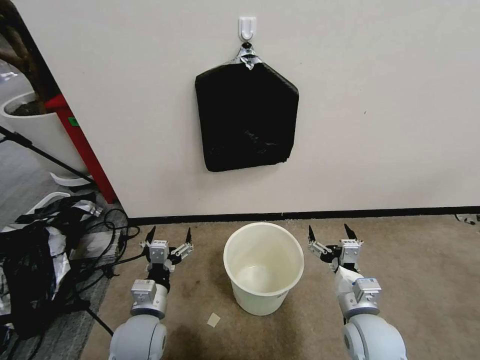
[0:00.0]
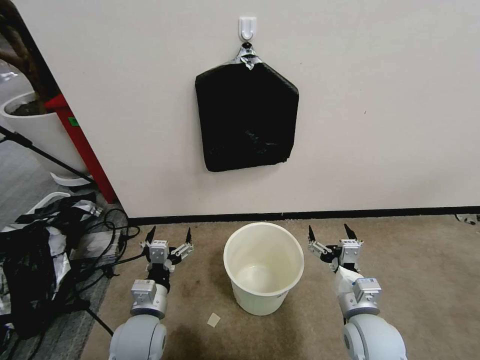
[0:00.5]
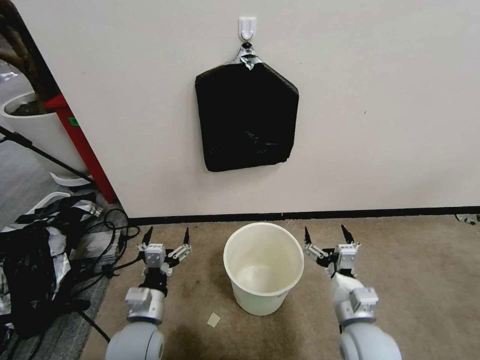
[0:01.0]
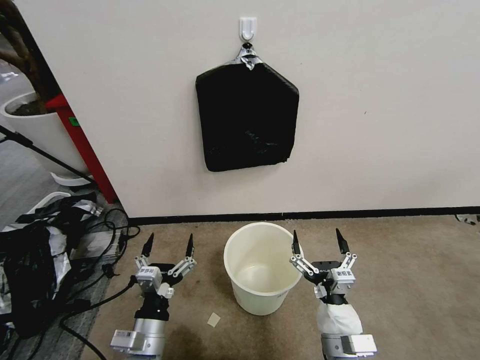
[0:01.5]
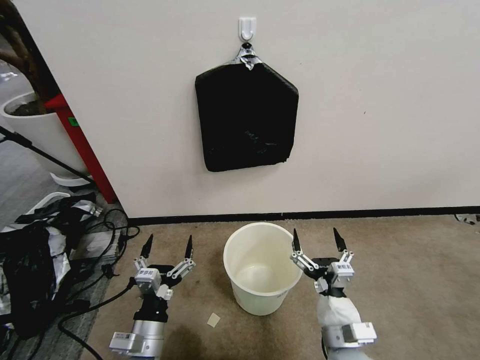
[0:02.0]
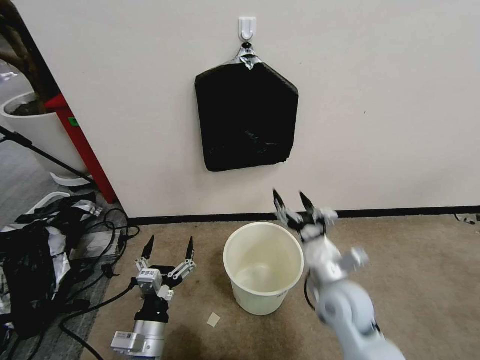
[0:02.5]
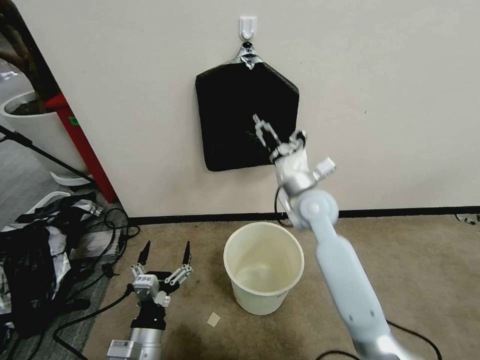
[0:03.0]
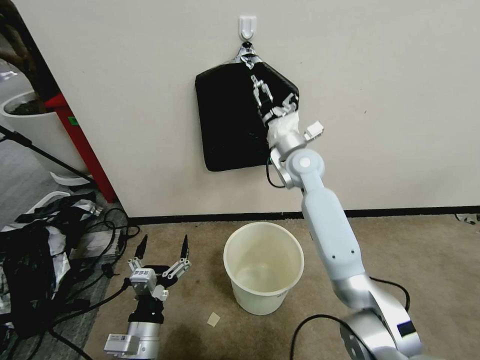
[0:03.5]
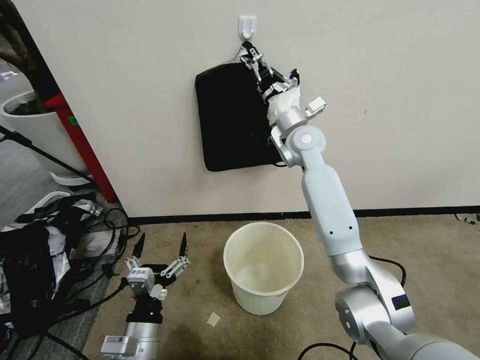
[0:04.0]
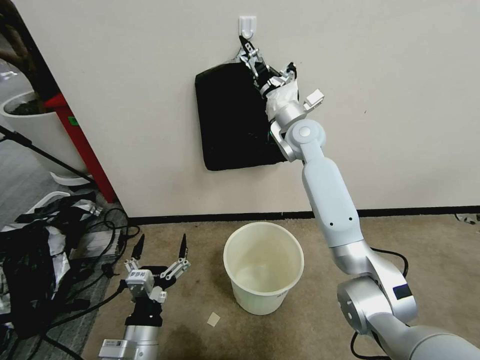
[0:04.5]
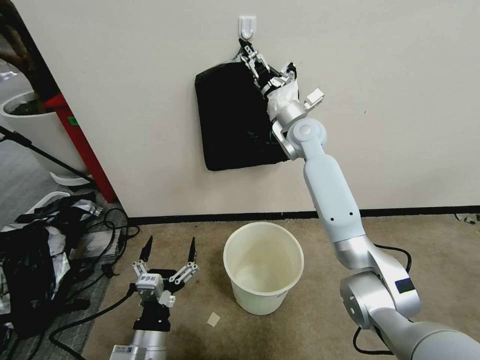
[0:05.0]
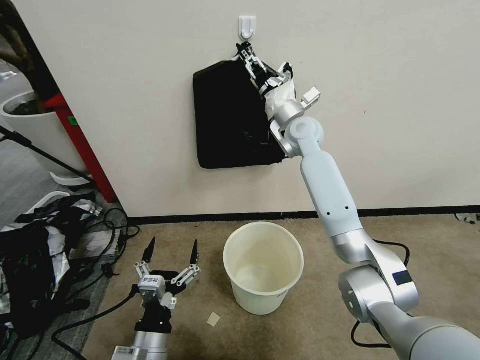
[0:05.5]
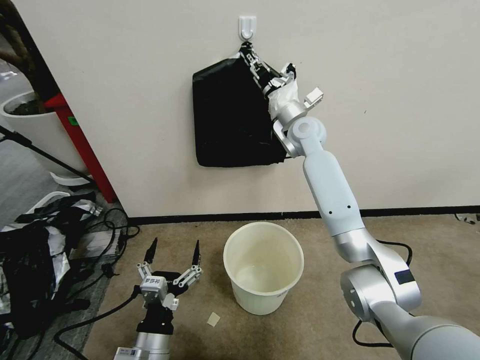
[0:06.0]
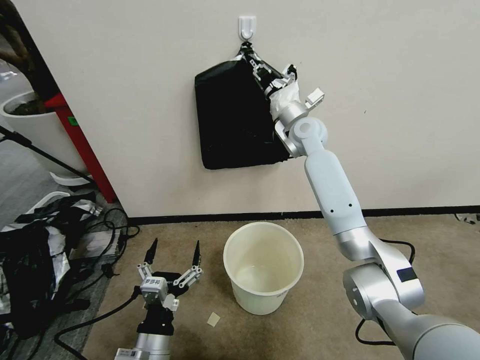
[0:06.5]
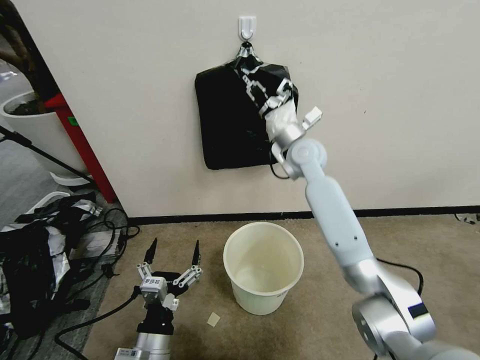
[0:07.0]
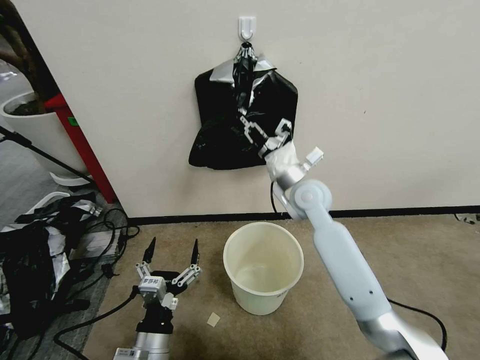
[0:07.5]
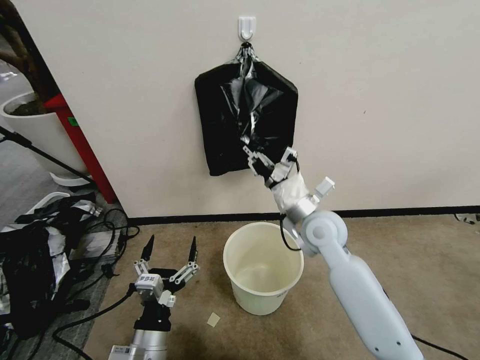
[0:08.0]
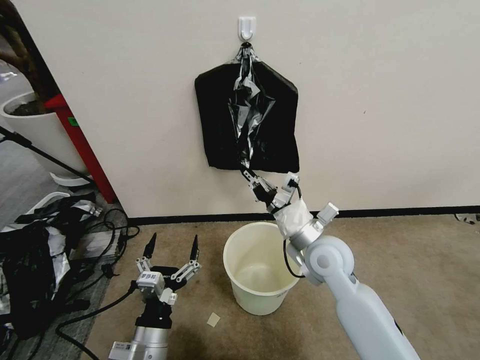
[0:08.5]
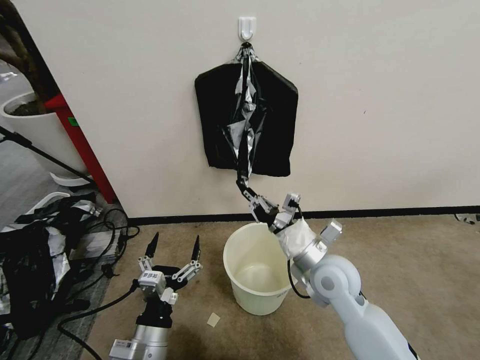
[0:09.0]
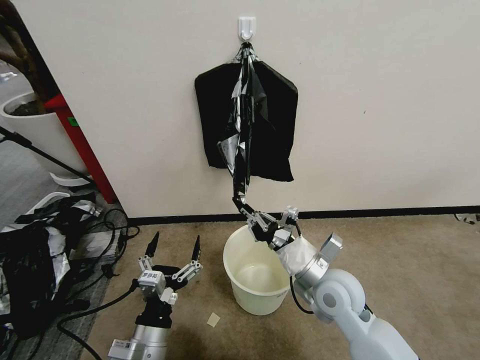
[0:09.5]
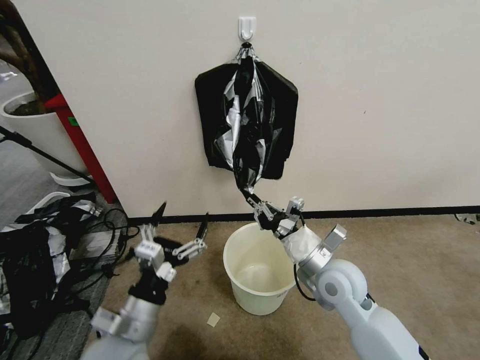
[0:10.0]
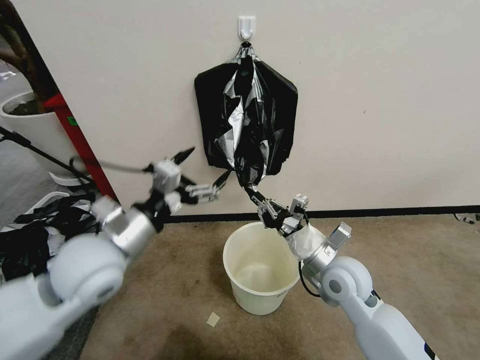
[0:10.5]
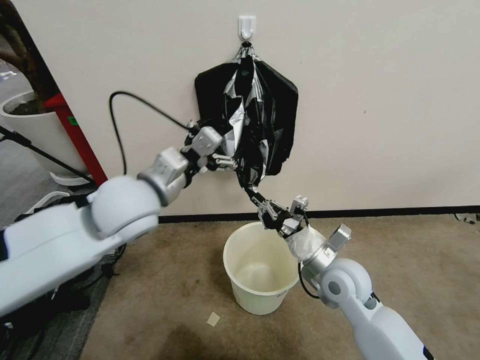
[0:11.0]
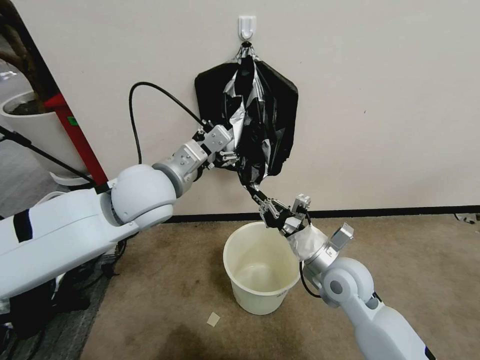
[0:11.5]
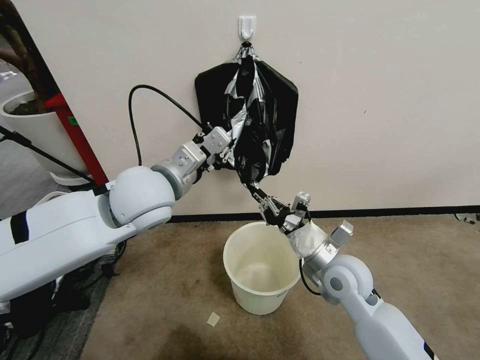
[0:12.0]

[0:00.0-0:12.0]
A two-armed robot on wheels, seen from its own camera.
Task of the whole recording: Place a trash bag onto the trash bin.
0:02.0 to 0:04.0: The right gripper heads forward and upward, covering roughly 50 cm.
0:04.0 to 0:06.0: The right gripper closes.
0:06.0 to 0:08.0: The right gripper travels backward and downward by some 25 cm.
0:08.0 to 0:10.0: The left gripper moves upward, about 5 cm. Meanwhile the right gripper goes some 10 cm backward and downward.
0:10.0 to 0:12.0: The left gripper travels upward and forward by approximately 25 cm, and closes its fingers.

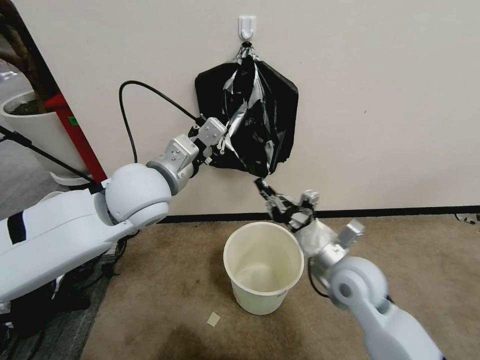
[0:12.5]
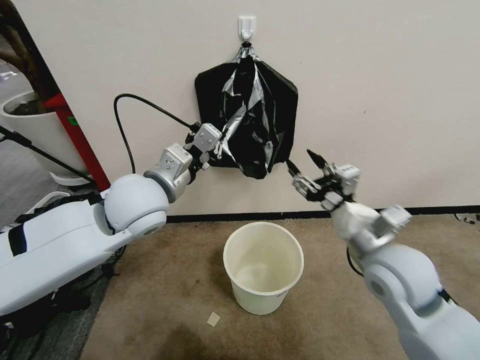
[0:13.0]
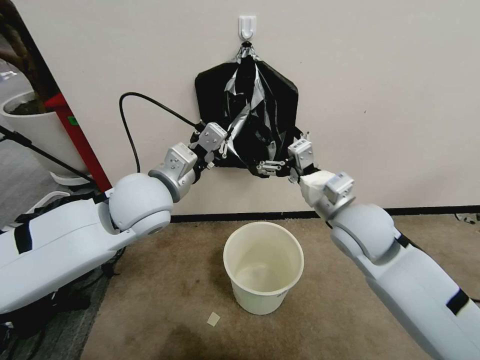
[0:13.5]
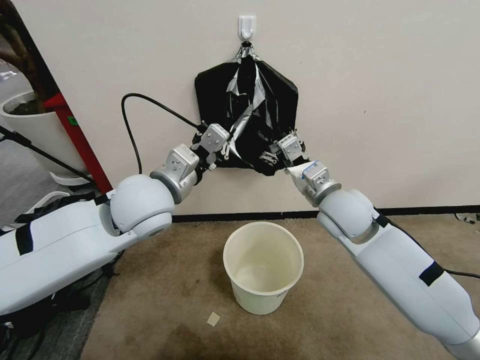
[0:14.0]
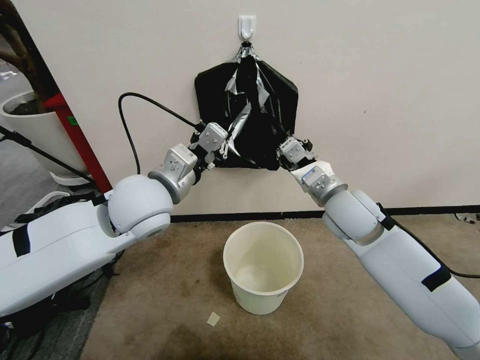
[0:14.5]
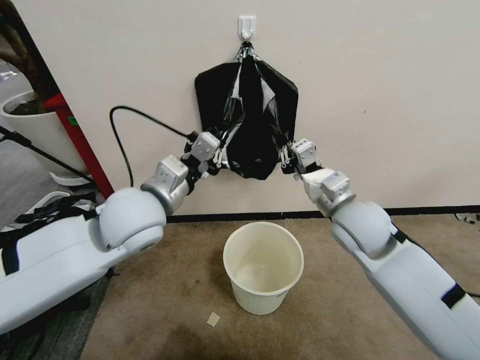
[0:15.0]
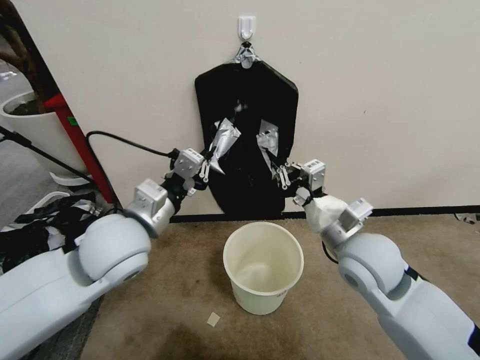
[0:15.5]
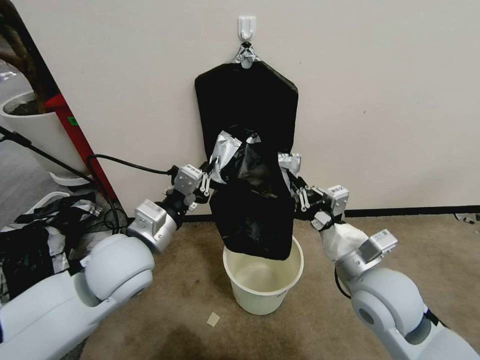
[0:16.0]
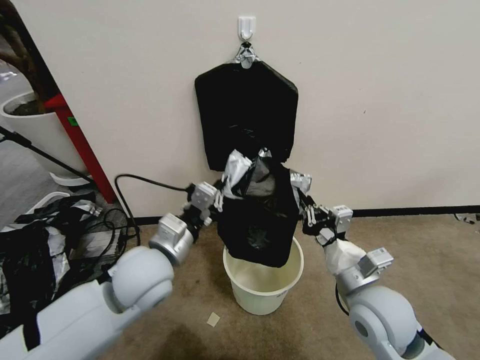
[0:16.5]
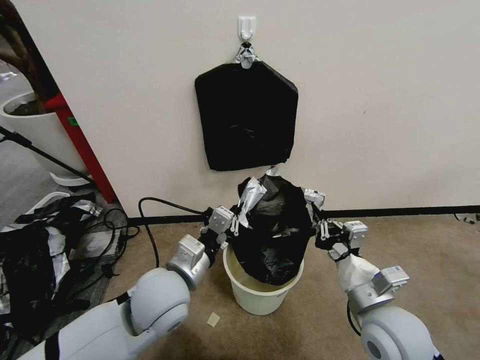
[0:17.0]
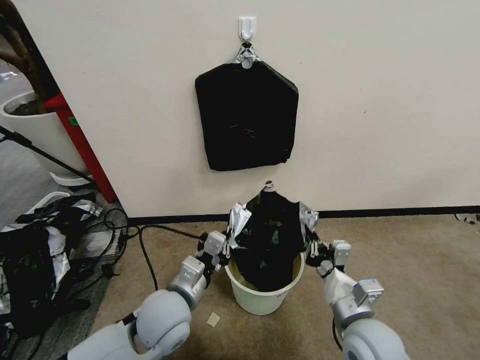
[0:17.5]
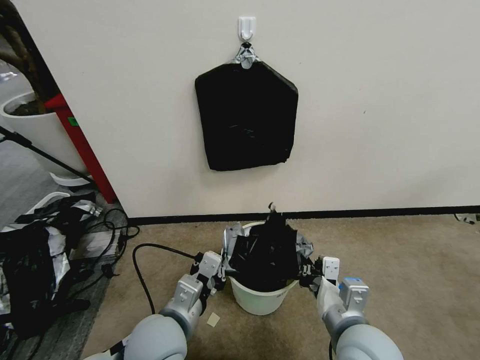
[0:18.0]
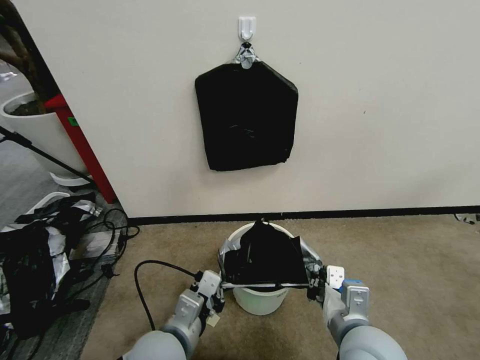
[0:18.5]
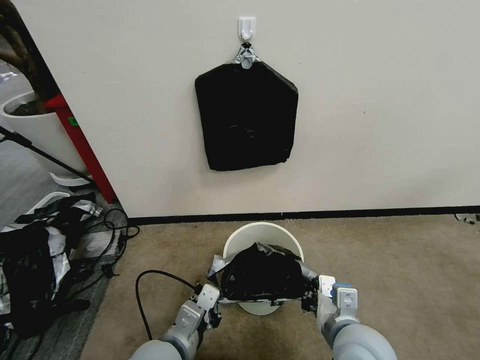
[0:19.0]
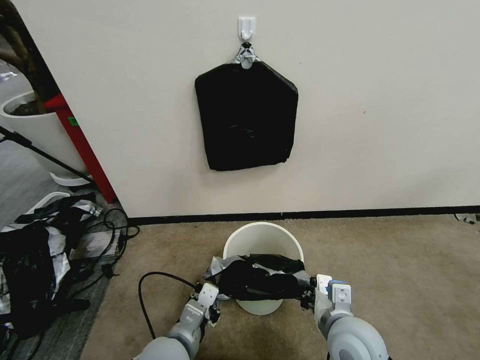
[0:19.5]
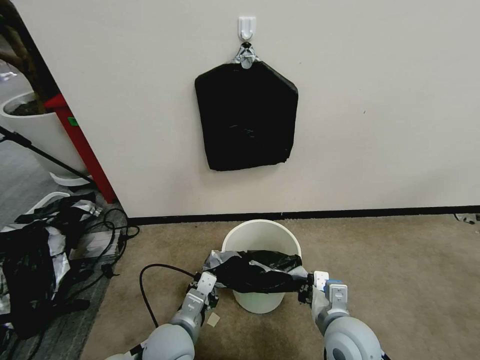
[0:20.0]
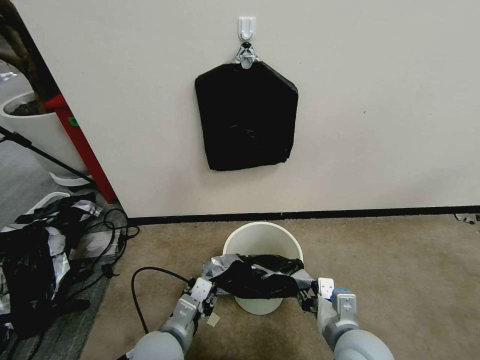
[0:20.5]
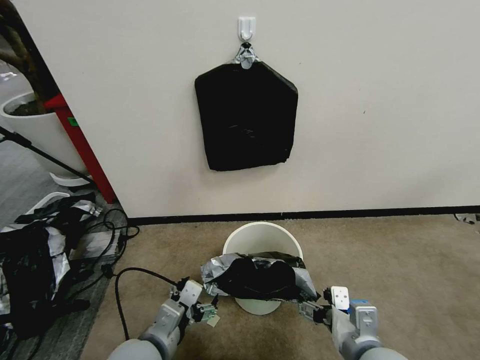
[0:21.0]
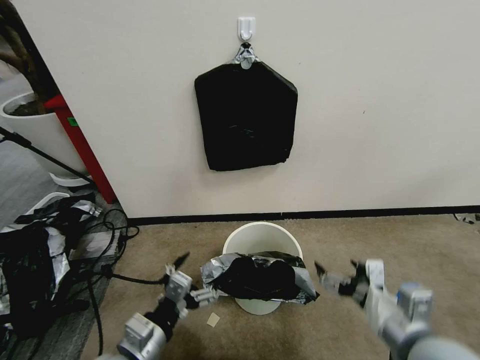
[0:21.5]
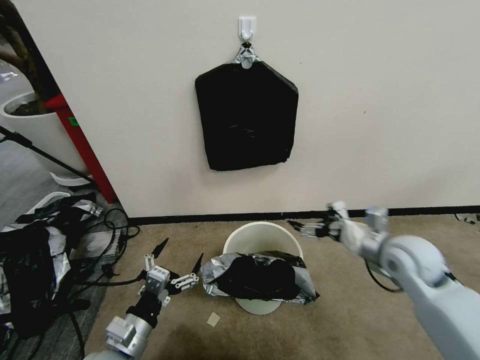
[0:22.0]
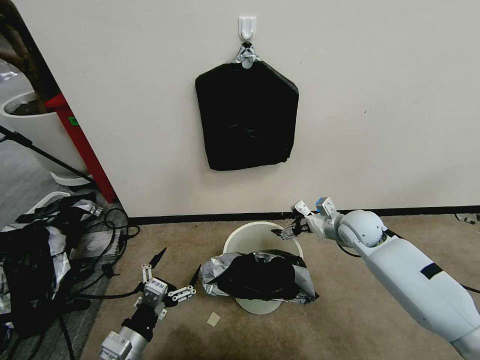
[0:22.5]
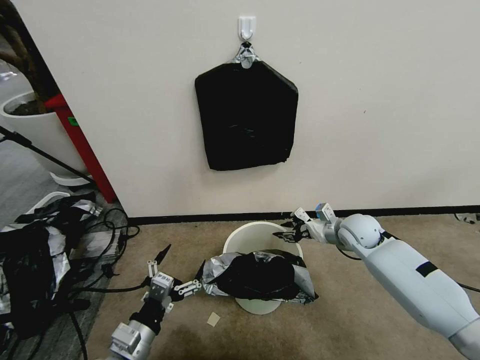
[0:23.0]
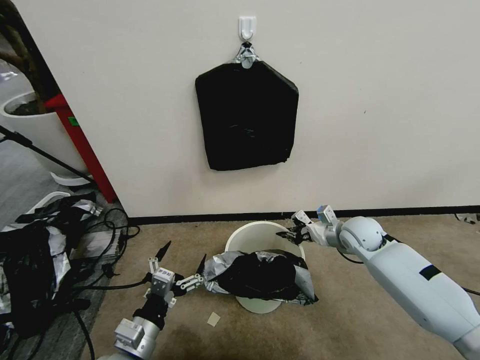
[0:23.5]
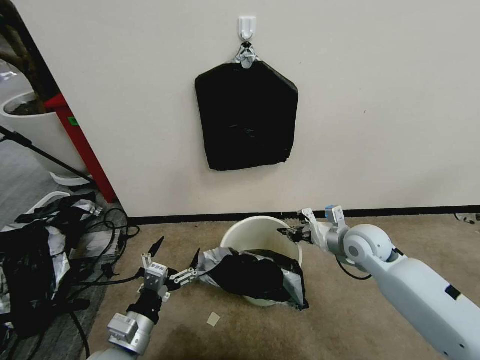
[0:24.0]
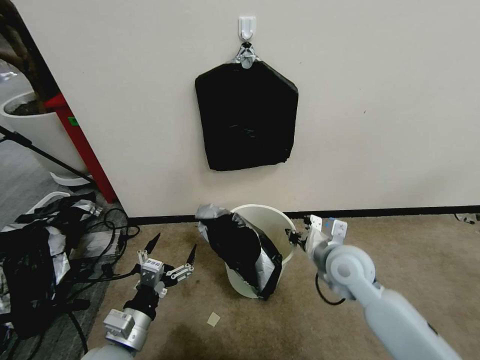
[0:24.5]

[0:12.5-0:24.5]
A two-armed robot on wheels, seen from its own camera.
Task of the whole recording: Place a trash bag onto the trash bin.
0:12.5 to 0:14.5: The right gripper goes some 15 cm forward and upward, and opens and closes again.
0:14.5 to 0:16.5: The left gripper travels downward and backward by approximately 15 cm, while the right gripper moves backward and downward, approximately 20 cm.
0:16.5 to 0:18.5: The left gripper moves backward and downward, roughly 15 cm. Meanwhile the right gripper is displaced backward by about 5 cm.
0:18.5 to 0:20.5: Both grippers move downward, about 5 cm. The left gripper opens up, while the right gripper opens its fingers.
0:20.5 to 0:22.5: The left gripper shifts roughly 10 cm to the left, and opens up, while the right gripper travels forward by some 25 cm, and opens its fingers.
0:22.5 to 0:24.5: The right gripper is displaced backward and to the left by approximately 15 cm, and closes.

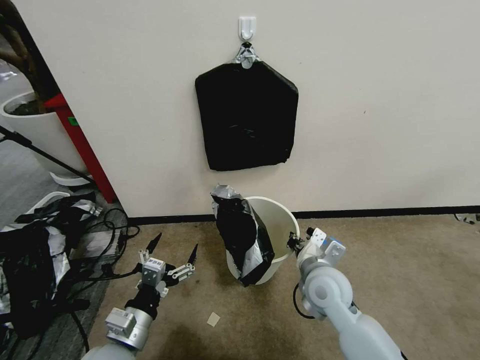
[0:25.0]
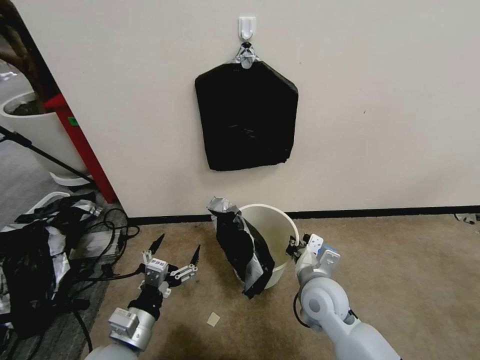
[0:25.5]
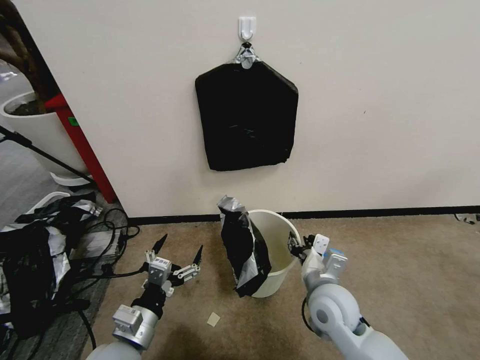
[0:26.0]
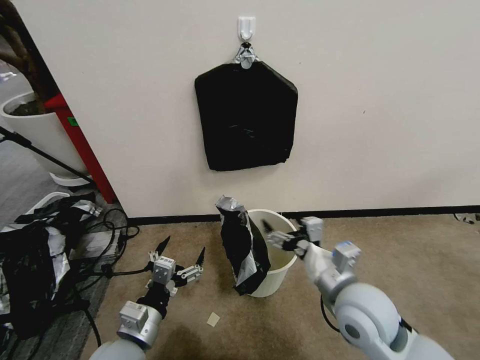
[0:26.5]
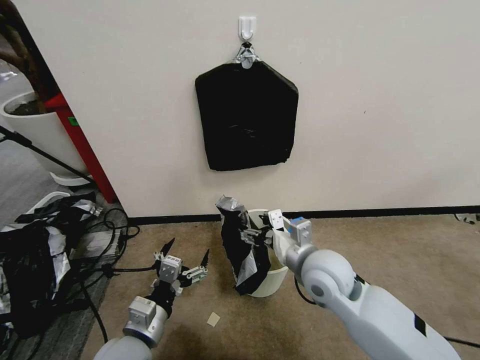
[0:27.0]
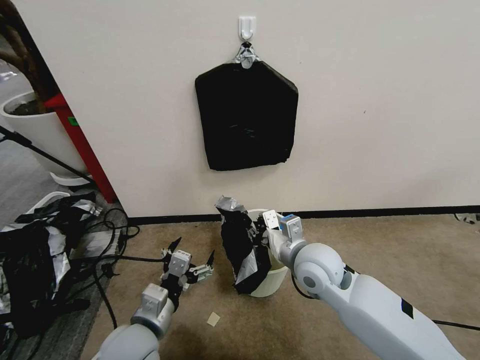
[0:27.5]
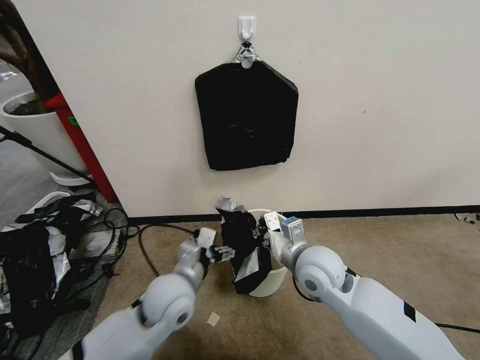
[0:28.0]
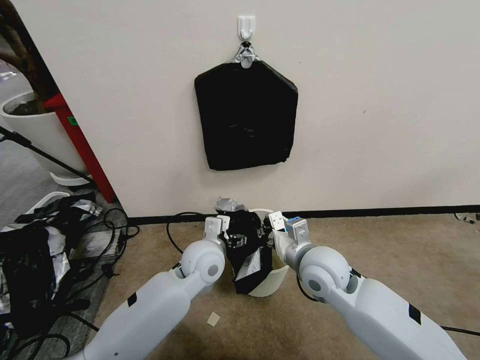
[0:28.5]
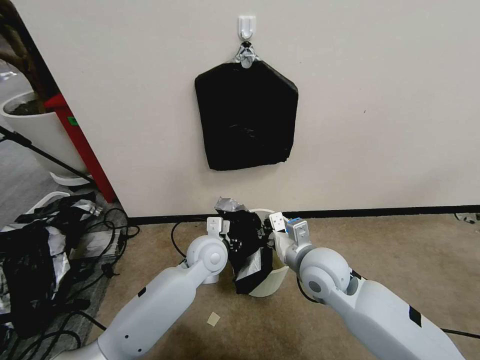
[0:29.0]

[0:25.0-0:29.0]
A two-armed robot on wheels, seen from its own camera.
Task of the whole recording: Place a trash bag onto the trash bin.
0:25.0 to 0:27.0: The right gripper is displaced upward by some 5 cm, and opens its fingers.
0:27.0 to 0:29.0: The right gripper closes. Meanwhile the left gripper shifts approximately 25 cm forward and to the right, and closes.
